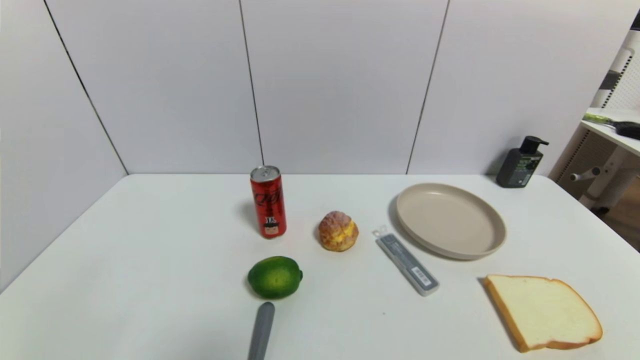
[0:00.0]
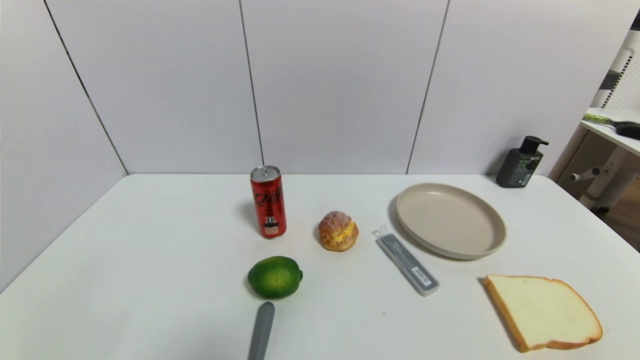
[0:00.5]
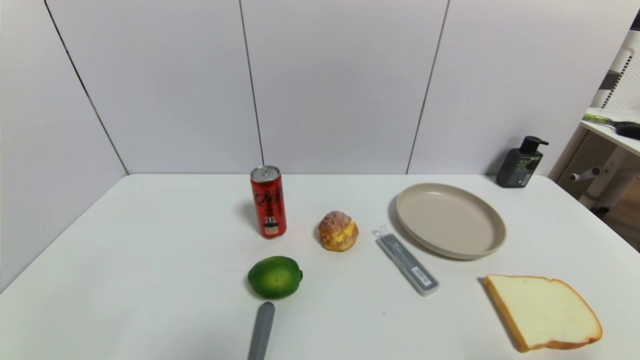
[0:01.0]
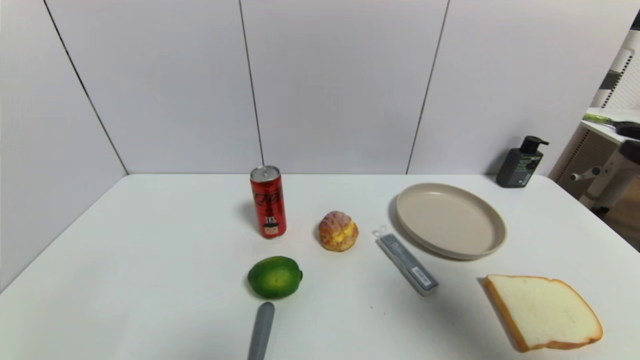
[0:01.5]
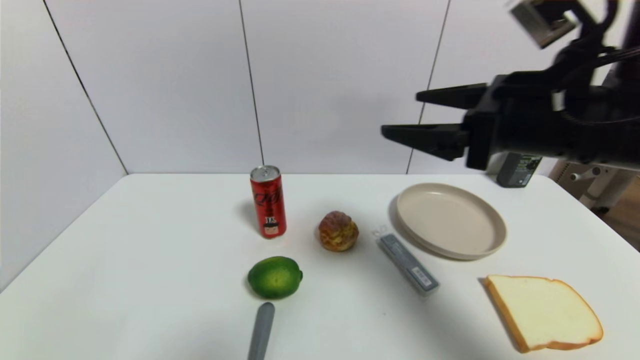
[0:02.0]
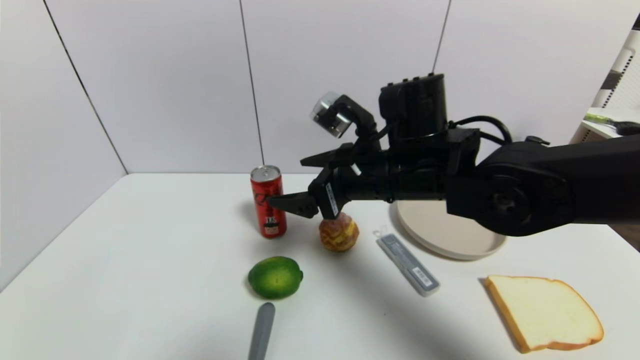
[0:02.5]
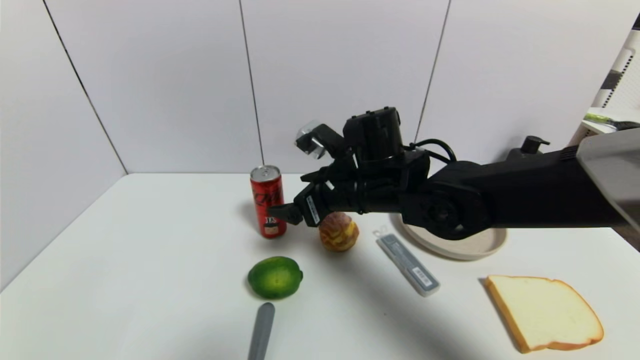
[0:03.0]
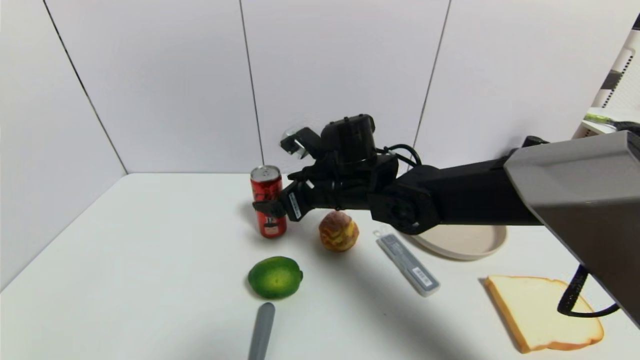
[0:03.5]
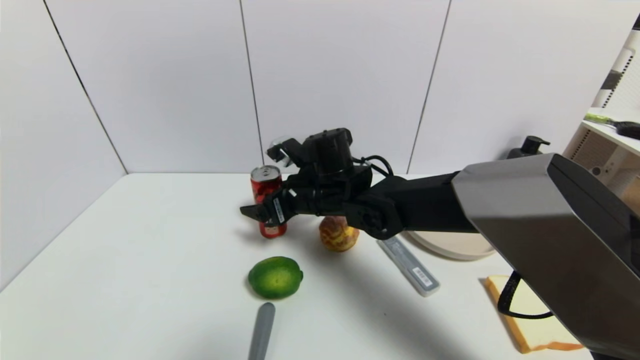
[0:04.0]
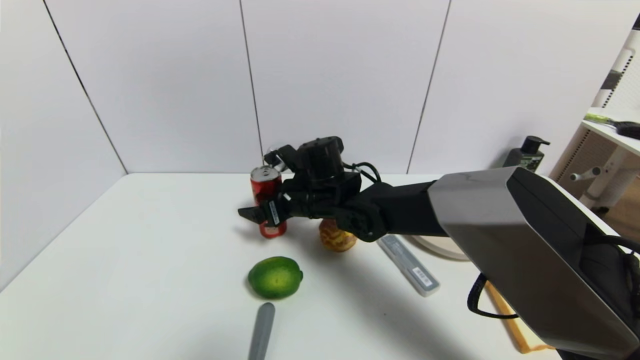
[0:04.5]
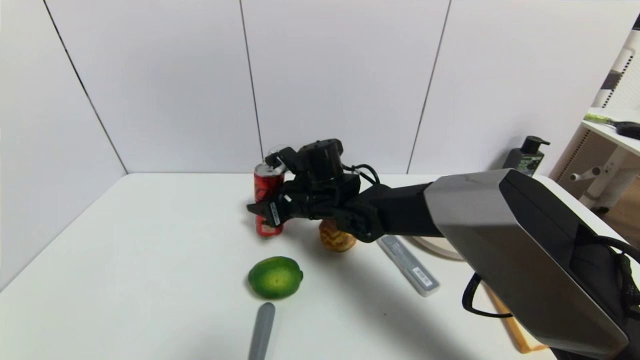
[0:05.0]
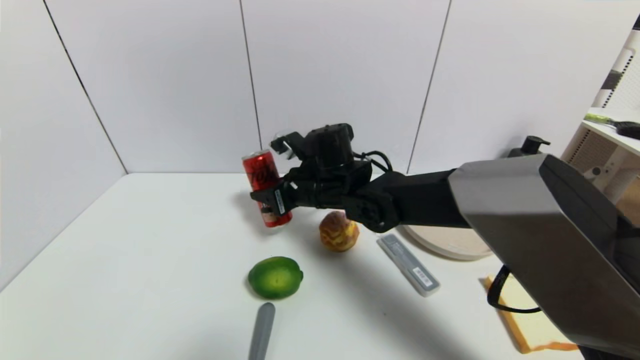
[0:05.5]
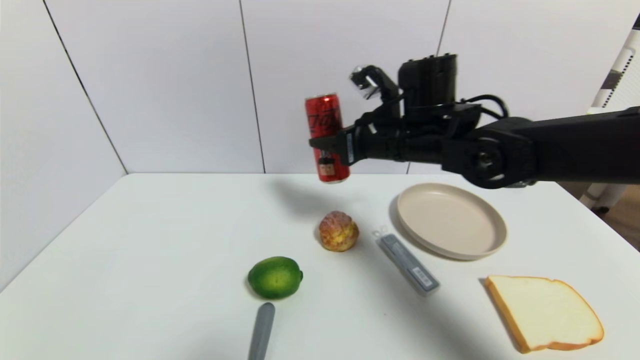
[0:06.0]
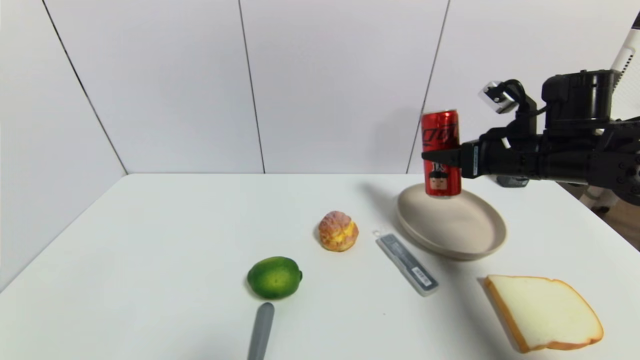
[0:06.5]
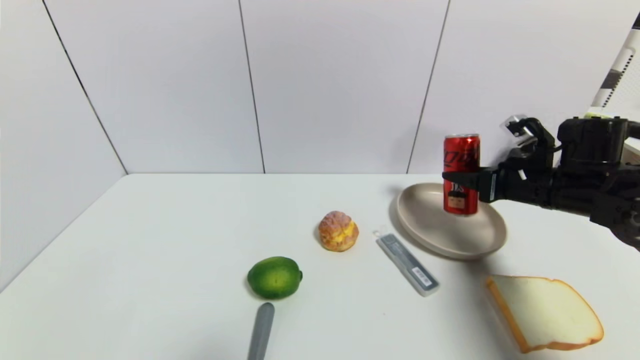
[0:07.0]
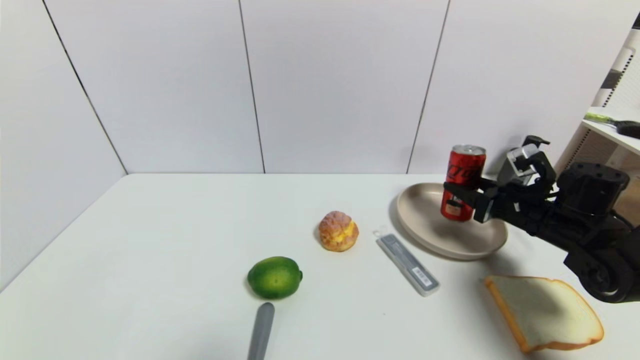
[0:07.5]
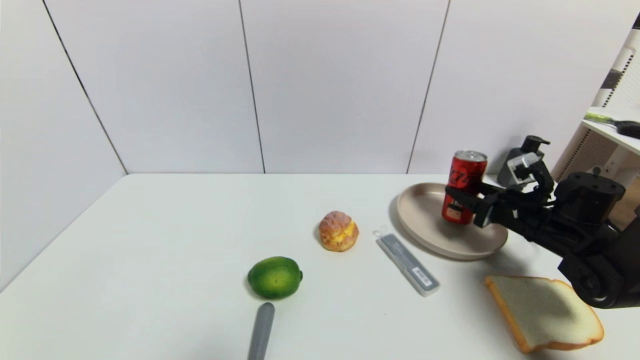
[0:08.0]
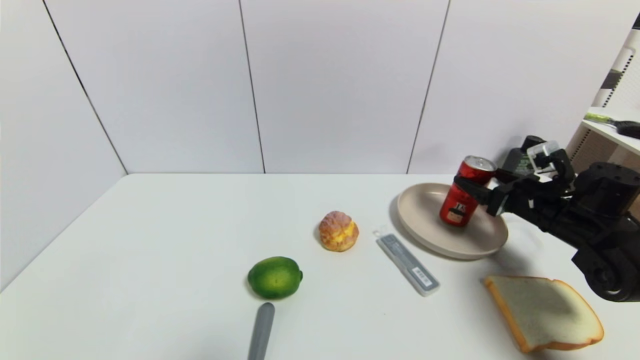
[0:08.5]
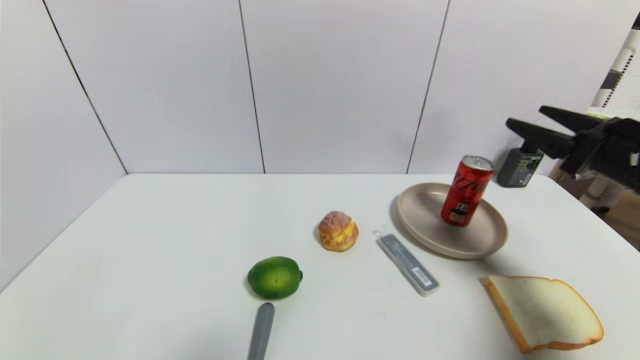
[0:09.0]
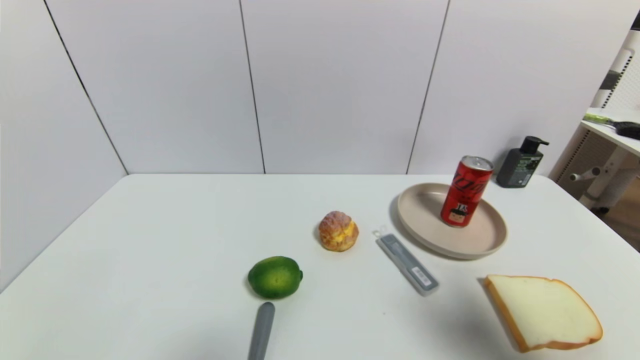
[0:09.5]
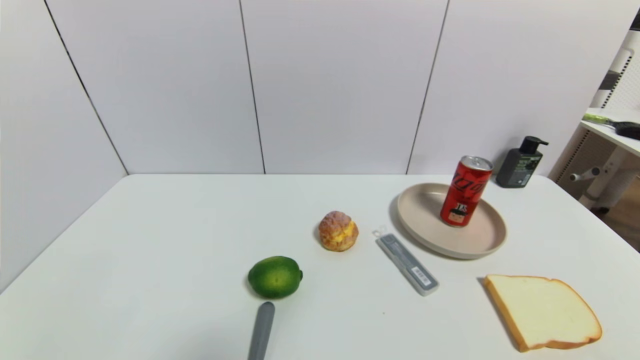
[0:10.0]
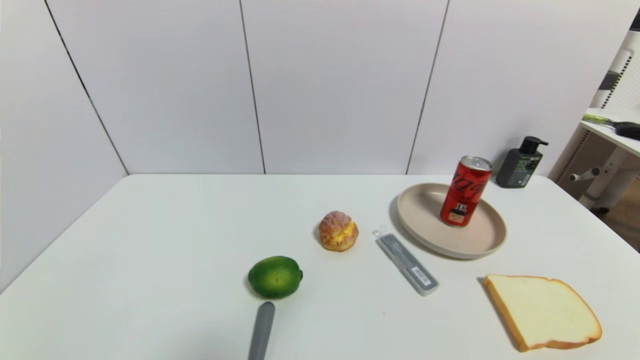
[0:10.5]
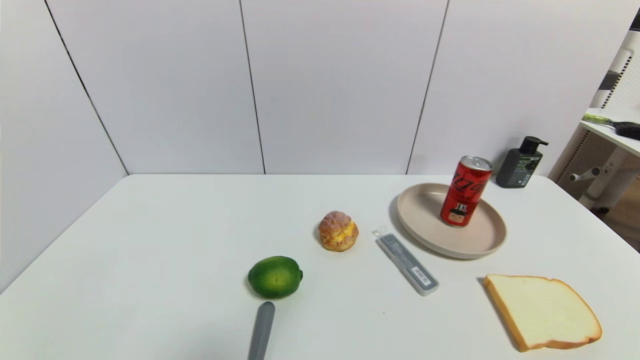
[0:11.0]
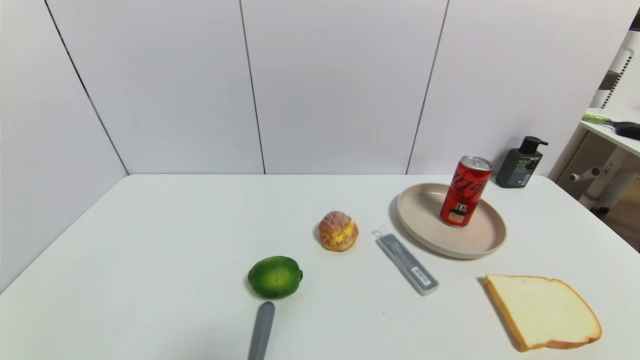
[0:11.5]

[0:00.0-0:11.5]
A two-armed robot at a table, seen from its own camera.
Task of the whole recording: use a gripper to pick the target object and place on the brown plate.
Step, 0:00.0 to 0:05.0: Grasp the coke with the right gripper.
Step, 0:05.5 to 0:08.5: Place the coke on the brown plate with the right gripper.
0:00.0 to 0:02.0: The right gripper heads forward, upward and to the left, covering roughly 40 cm.
0:02.0 to 0:04.0: The right gripper goes some 25 cm to the left, downward and forward.
0:04.0 to 0:06.0: The right gripper moves to the right and upward, approximately 15 cm, and closes up.
0:06.0 to 0:07.5: The right gripper moves to the right and downward, approximately 25 cm.
0:07.5 to 0:09.5: The right gripper shifts some 30 cm backward and upward, and opens.
0:09.5 to 0:11.5: The right gripper moves downward and backward, some 20 cm.

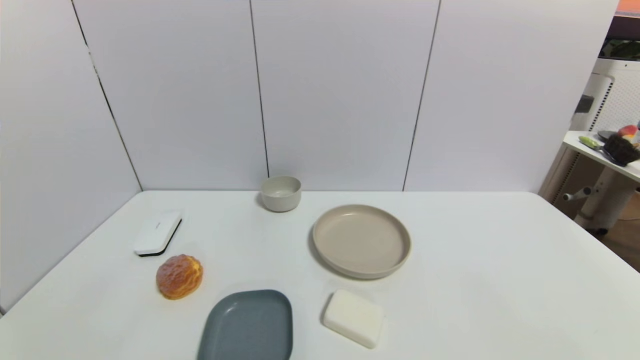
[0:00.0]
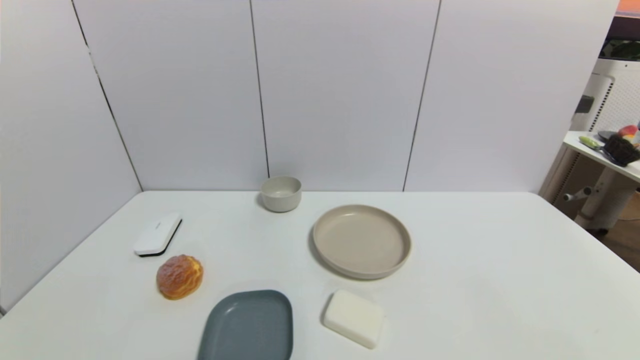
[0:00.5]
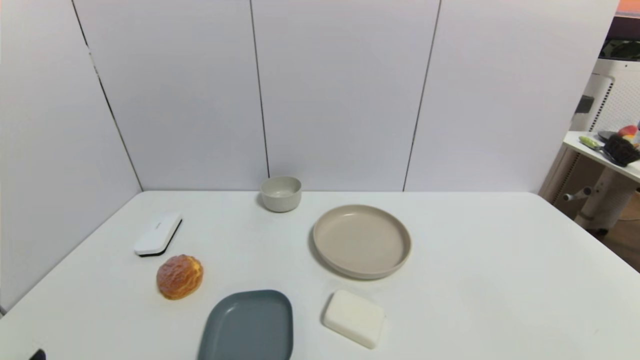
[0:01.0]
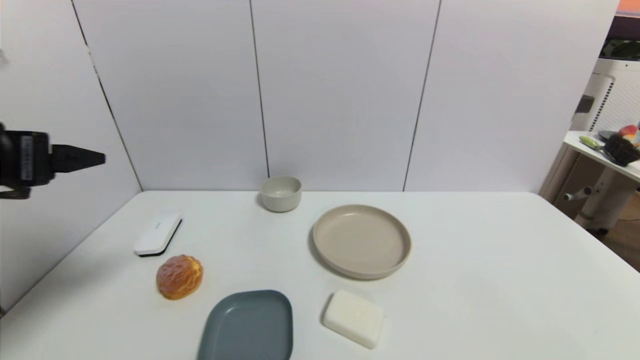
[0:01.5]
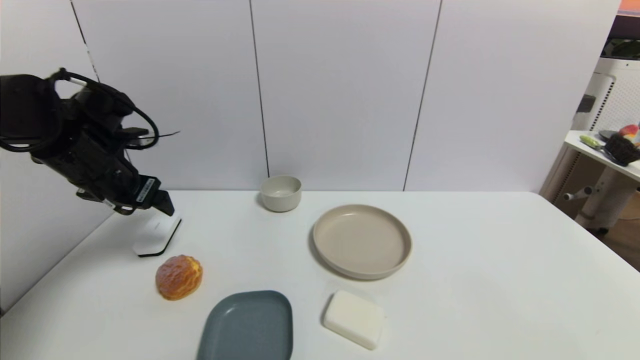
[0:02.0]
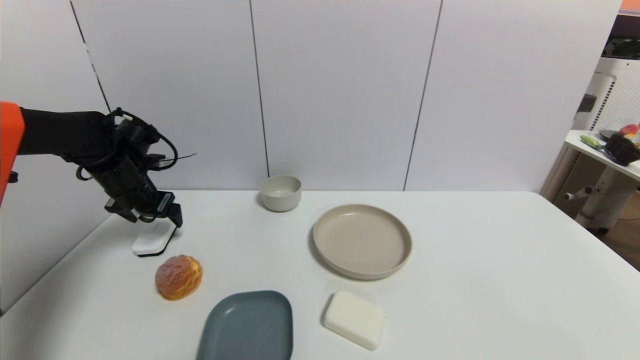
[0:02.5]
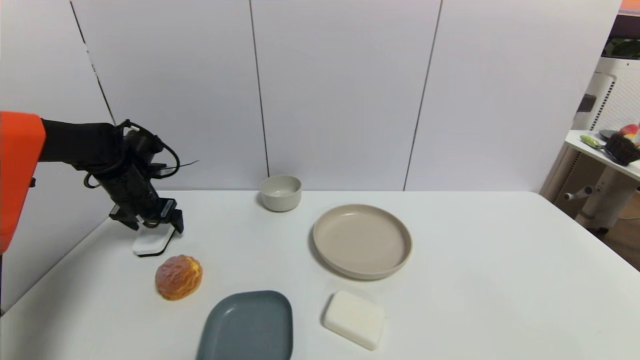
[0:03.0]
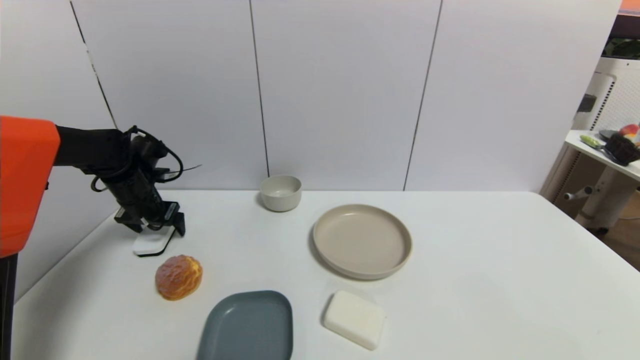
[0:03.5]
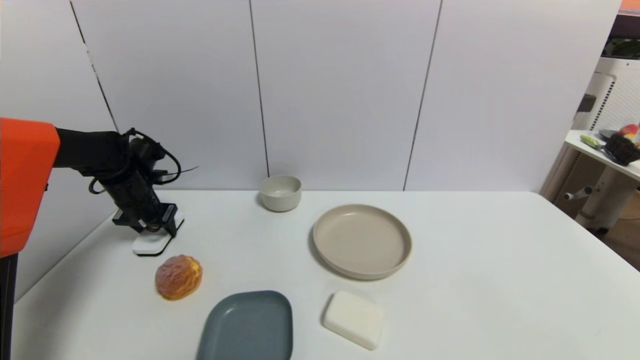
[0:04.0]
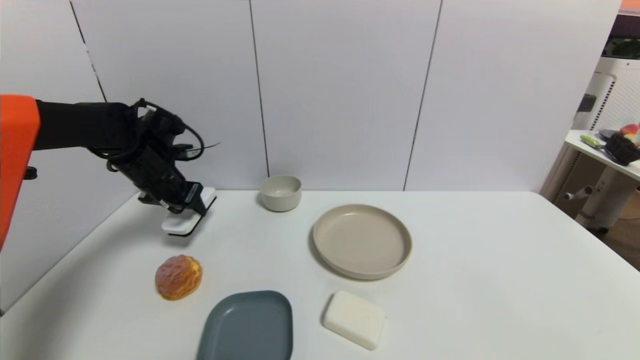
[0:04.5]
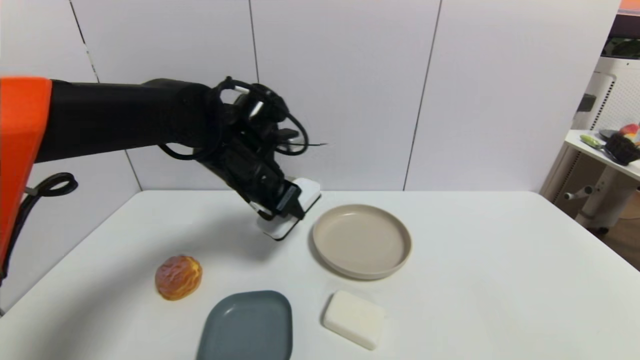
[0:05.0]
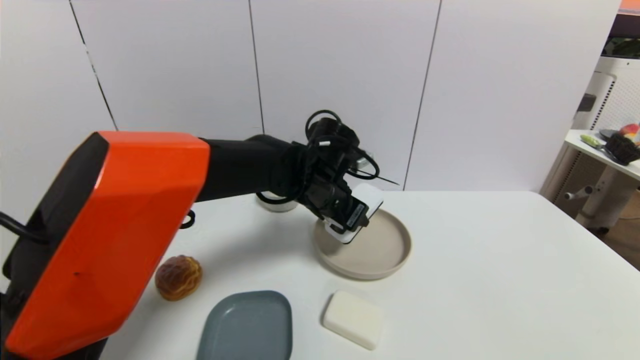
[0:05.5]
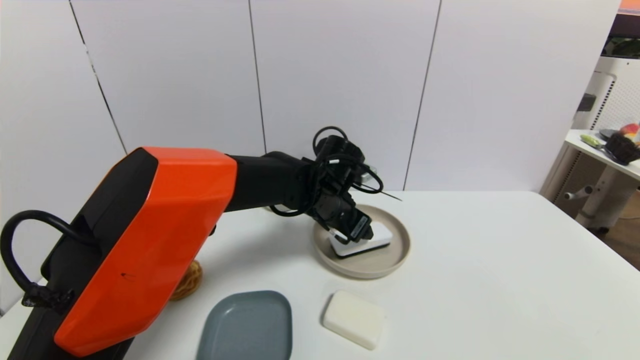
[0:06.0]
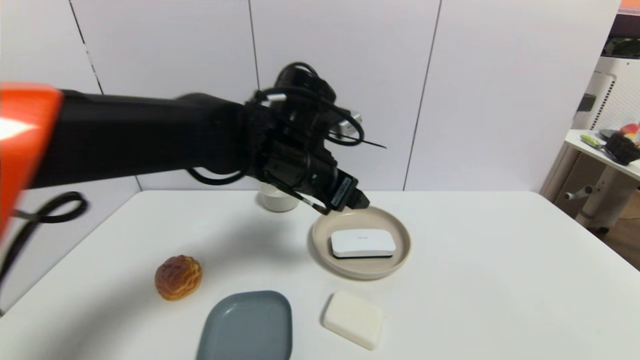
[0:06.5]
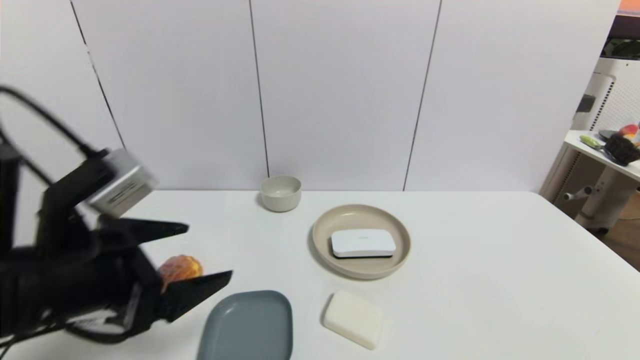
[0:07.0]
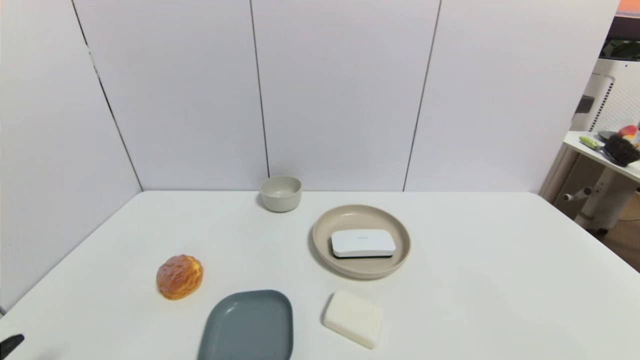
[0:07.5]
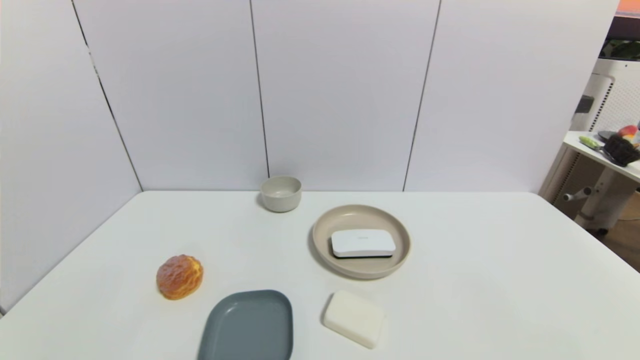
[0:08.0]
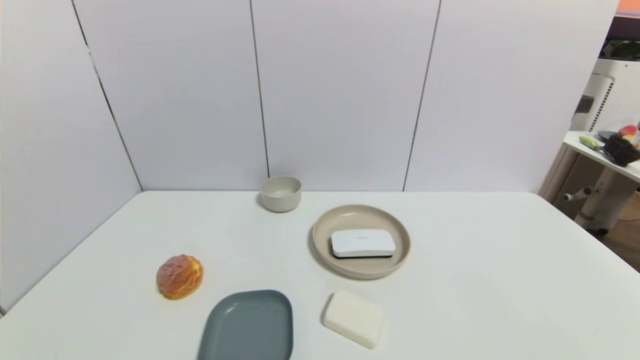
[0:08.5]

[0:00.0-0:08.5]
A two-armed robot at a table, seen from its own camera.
Task of the whole recording: use a gripper to pick the target object and place on the brown plate.
Step, 0:00.0 to 0:04.0: Grasp the blackboard erasure with the left gripper.
Step, 0:04.5 to 0:06.0: Place the blackboard erasure on the brown plate with the left gripper.
0:00.0 to 0:02.0: The left gripper is displaced forward and upward by approximately 40 cm.
0:02.0 to 0:04.0: The left gripper travels downward and forward by approximately 15 cm, and closes its fingers.
0:04.0 to 0:06.5: The left gripper shifts approximately 35 cm to the right, upward and backward, and opens.
0:06.5 to 0:08.5: The left gripper heads backward, to the left and downward, covering approximately 40 cm.
